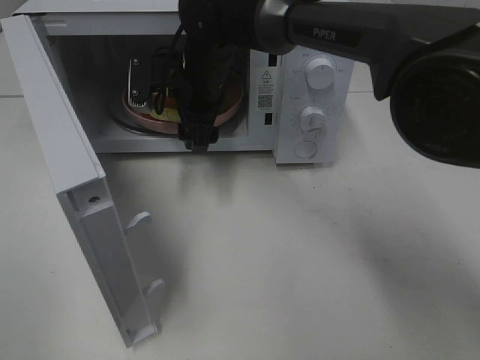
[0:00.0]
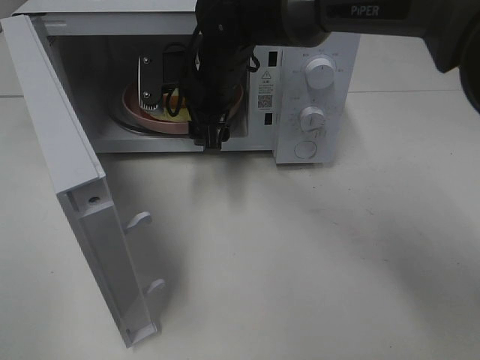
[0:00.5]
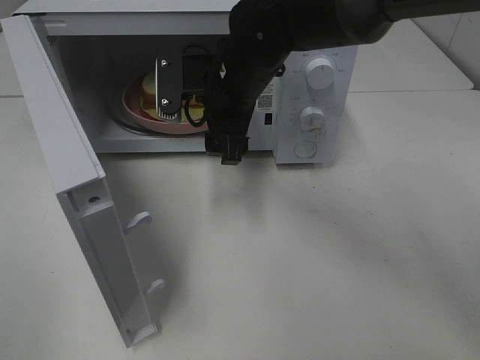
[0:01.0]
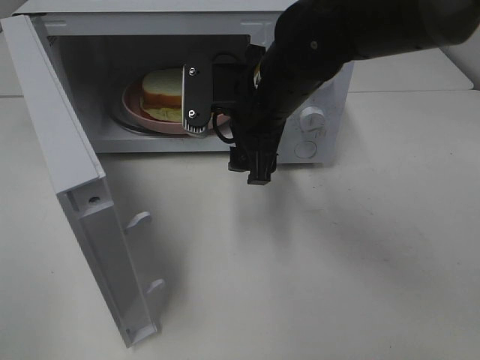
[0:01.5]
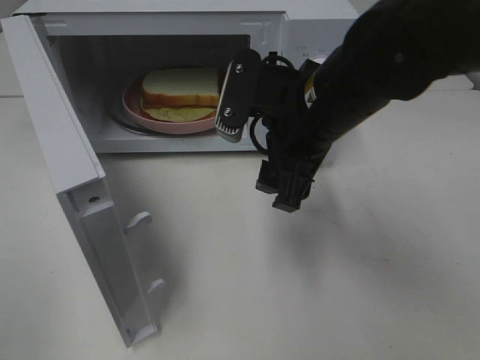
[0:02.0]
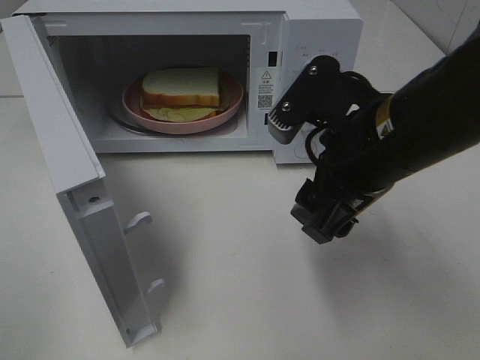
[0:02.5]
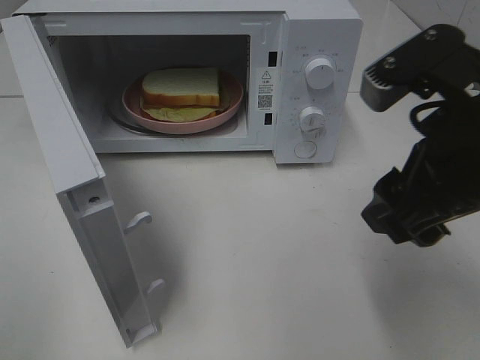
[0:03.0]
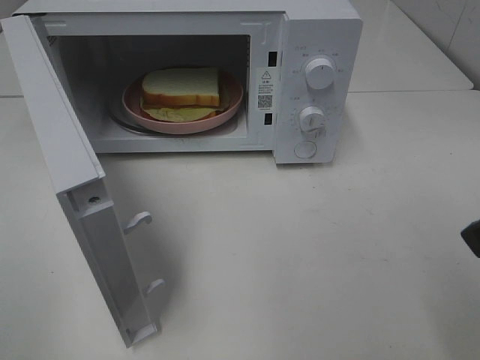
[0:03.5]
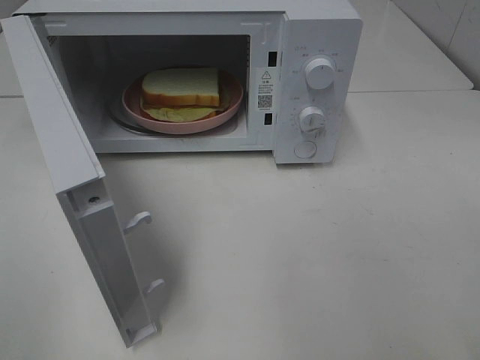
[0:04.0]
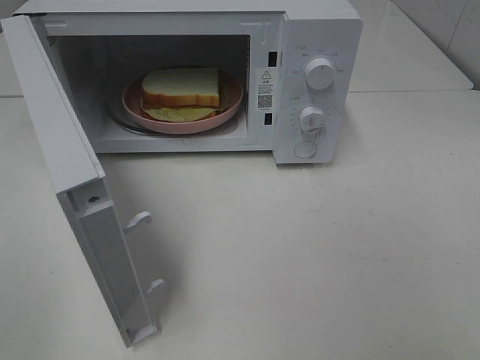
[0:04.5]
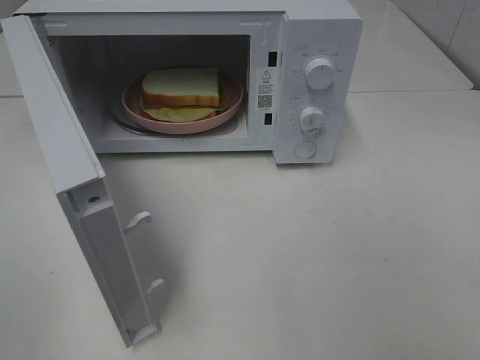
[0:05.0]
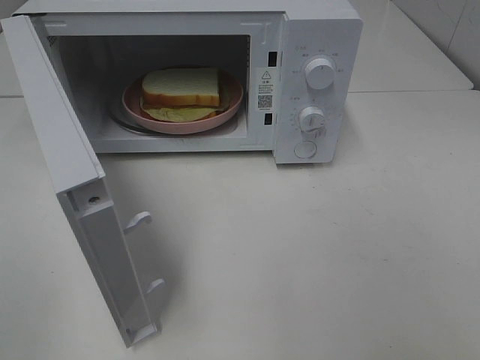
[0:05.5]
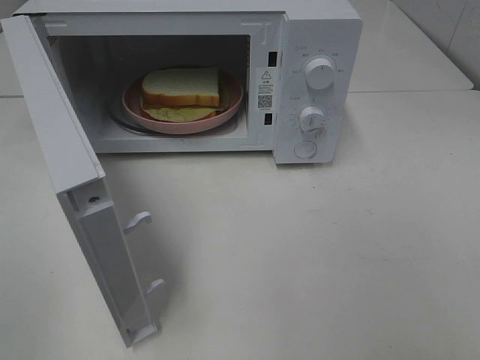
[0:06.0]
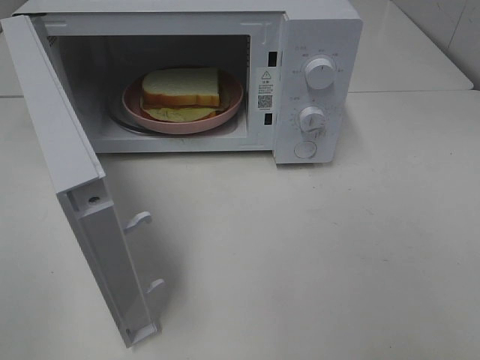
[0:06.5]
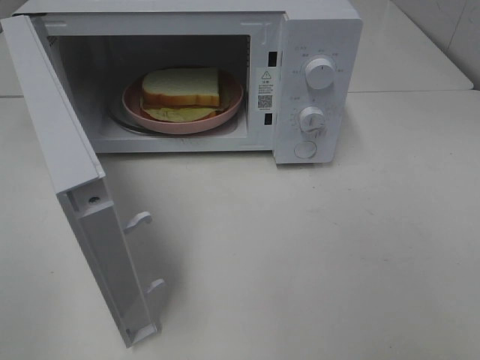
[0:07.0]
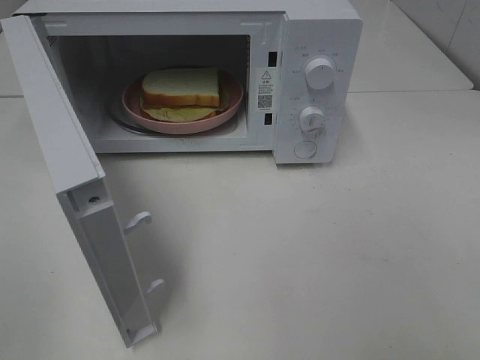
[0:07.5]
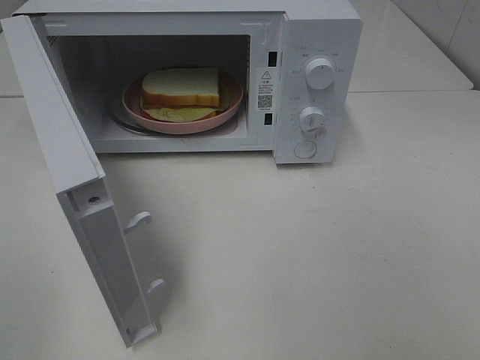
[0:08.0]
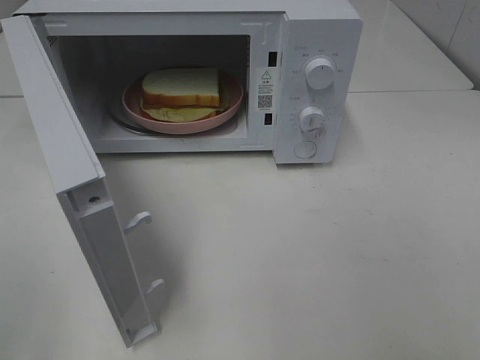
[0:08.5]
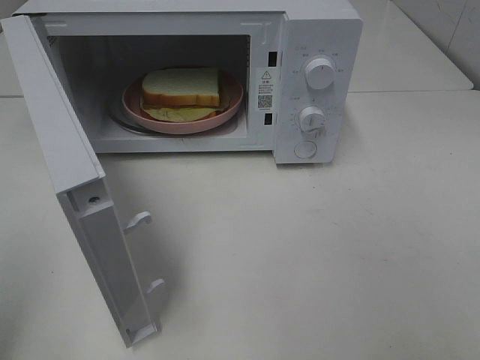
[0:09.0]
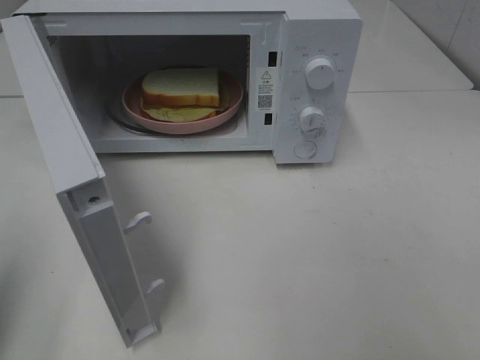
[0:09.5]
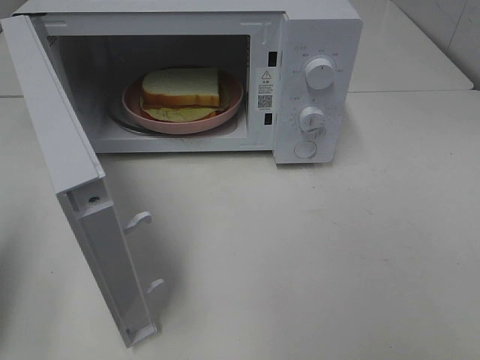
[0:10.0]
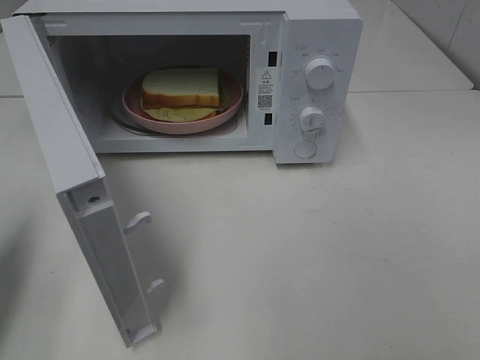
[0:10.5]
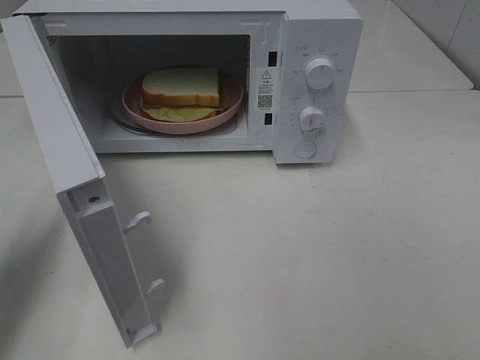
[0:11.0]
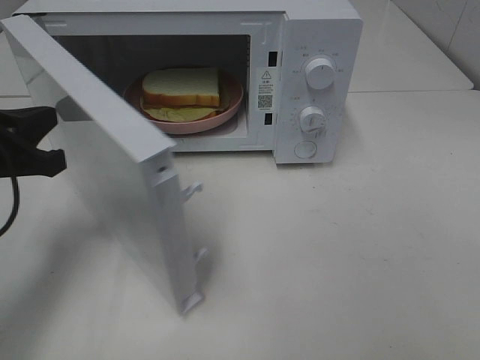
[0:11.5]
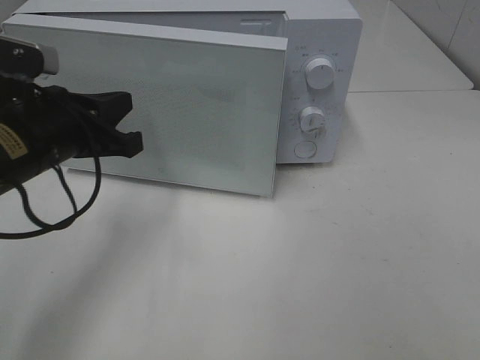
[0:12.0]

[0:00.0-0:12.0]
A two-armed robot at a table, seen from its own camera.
Task of the whole recording: Heat Sandwich.
0:00.0 to 0:02.0: The right gripper moves backward and to the right, approximately 20 cm.
0:02.0 to 0:04.0: The right gripper shifts approximately 25 cm backward, to the right and upward.
0:06.0 to 0:08.0: The two grippers keep their place.
0:08.0 to 0:10.0: The left gripper goes approximately 15 cm forward, and closes.
0:10.0 to 0:12.0: The left gripper is displaced to the right, forward and downward by about 20 cm.

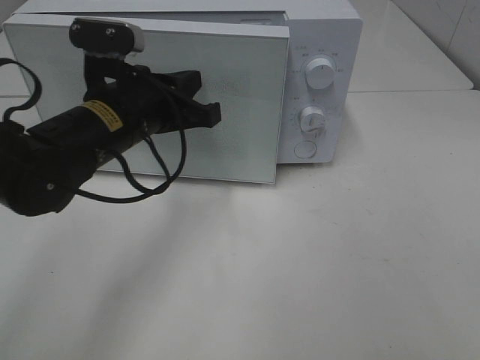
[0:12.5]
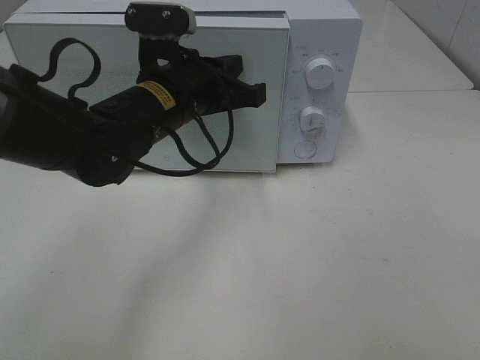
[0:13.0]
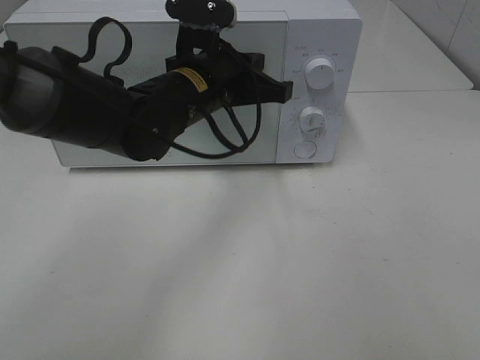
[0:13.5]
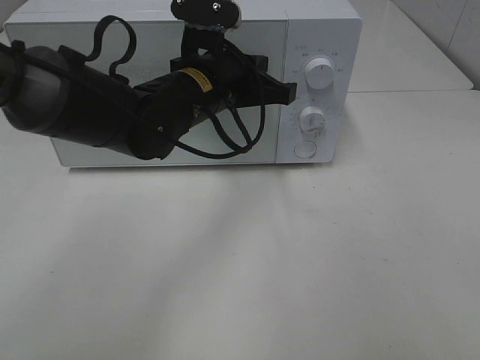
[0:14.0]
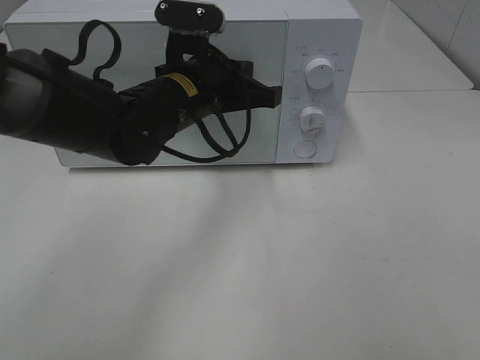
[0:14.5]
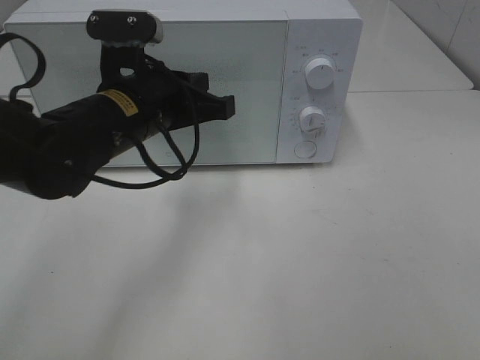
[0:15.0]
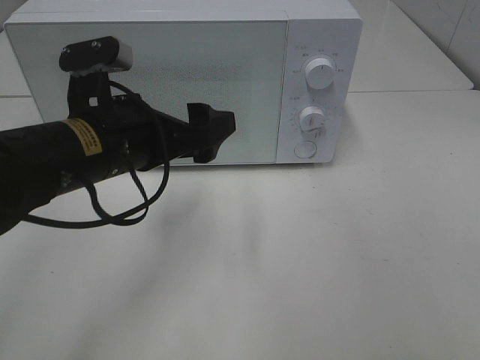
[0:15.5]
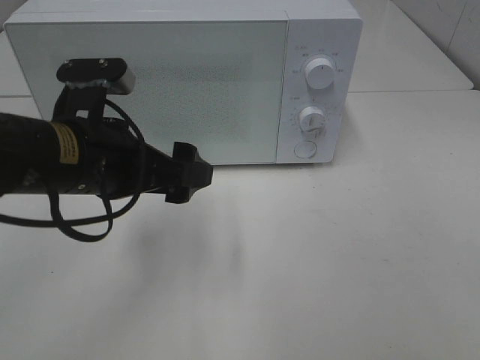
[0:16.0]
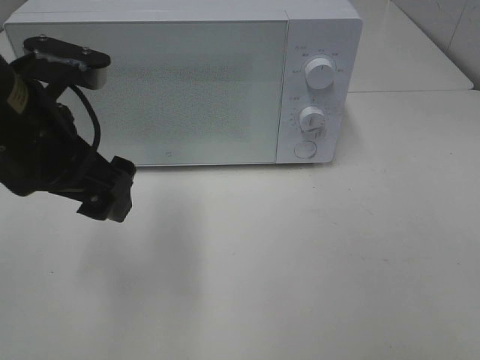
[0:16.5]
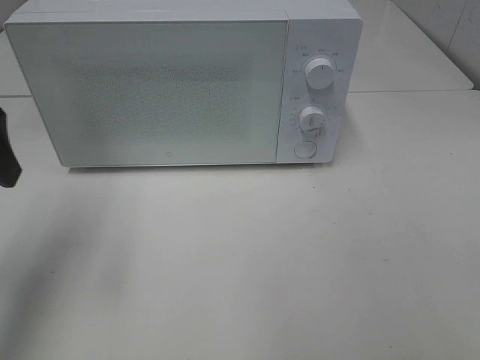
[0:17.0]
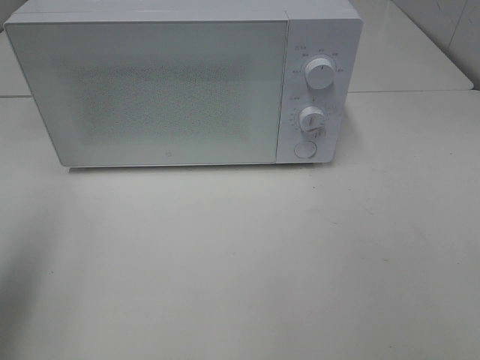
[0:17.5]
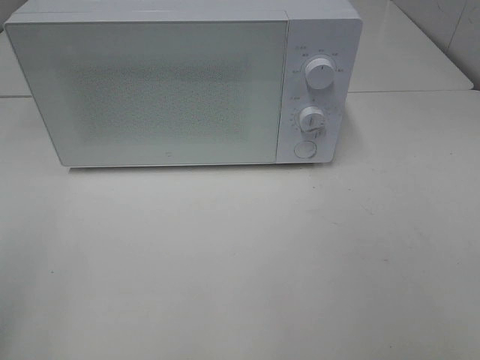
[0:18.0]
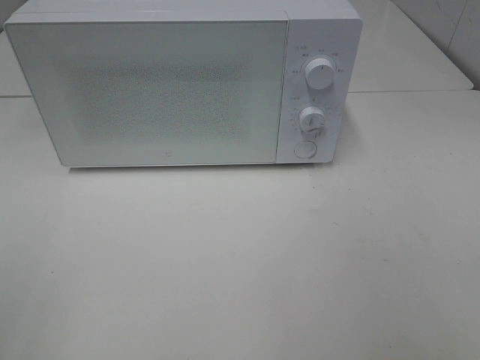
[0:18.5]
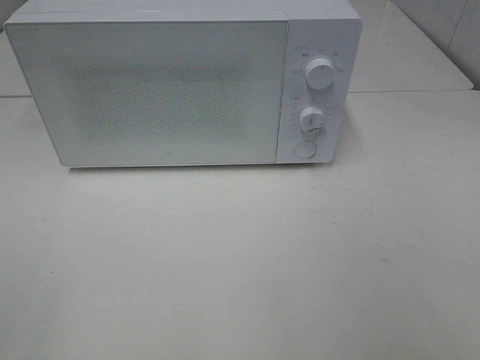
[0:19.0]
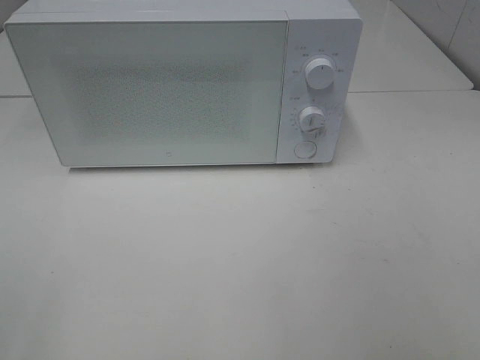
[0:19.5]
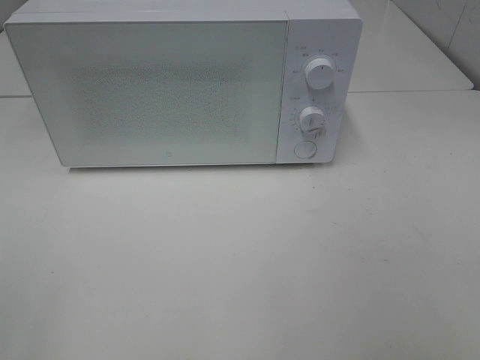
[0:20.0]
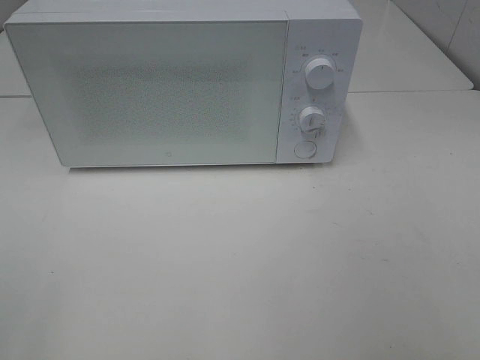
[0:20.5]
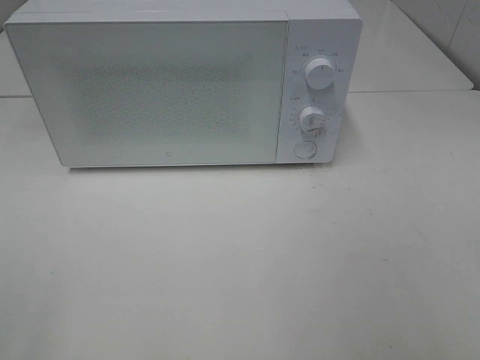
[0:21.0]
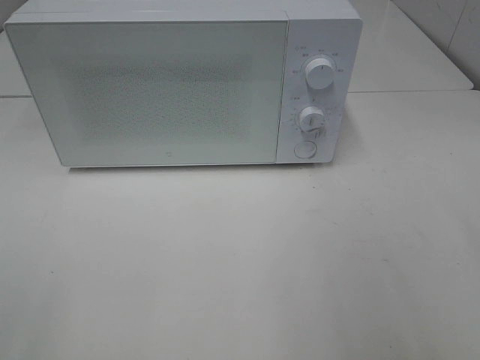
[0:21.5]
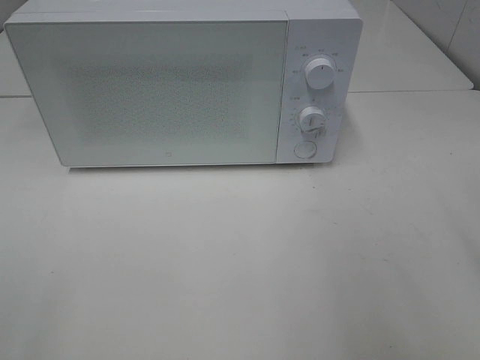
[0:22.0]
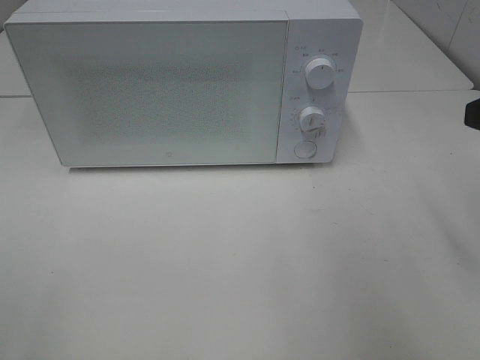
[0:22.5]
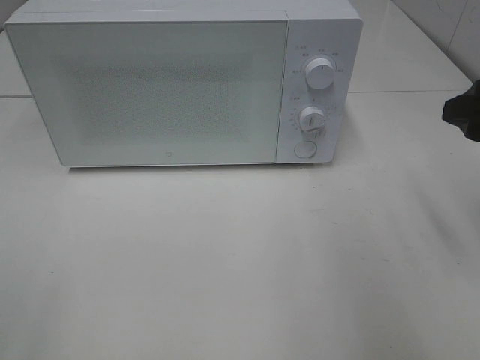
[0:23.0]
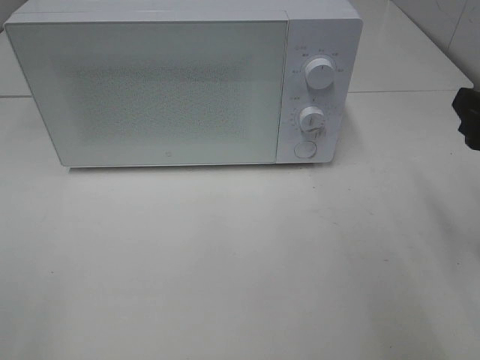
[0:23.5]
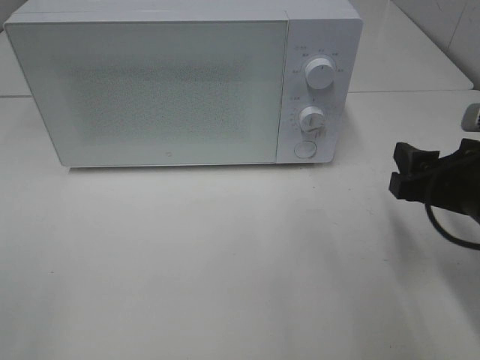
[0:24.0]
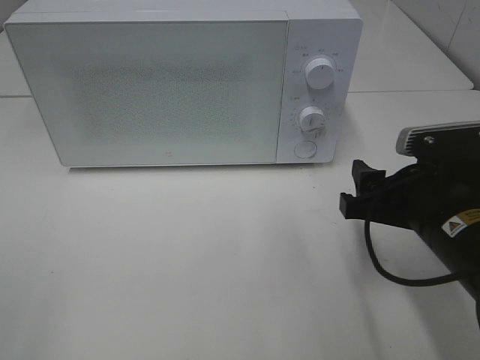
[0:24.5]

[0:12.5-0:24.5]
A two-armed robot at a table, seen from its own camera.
Task of the whole recording: Heat Sandwich.
Step, 0:12.5 to 0:14.5: Left hand: close the microwave door.
0:12.5 to 0:14.5: The left gripper goes about 5 cm to the right.
0:14.5 to 0:16.5: The left gripper heads backward, to the left and upward, covering approximately 15 cm, and opens.
0:16.5 to 0:18.5: The left gripper heads backward and to the left, covering about 25 cm.
0:22.5 to 0:24.5: The right gripper is displaced downward and to the left by approximately 15 cm.

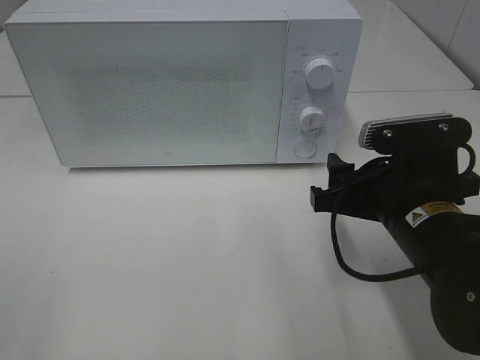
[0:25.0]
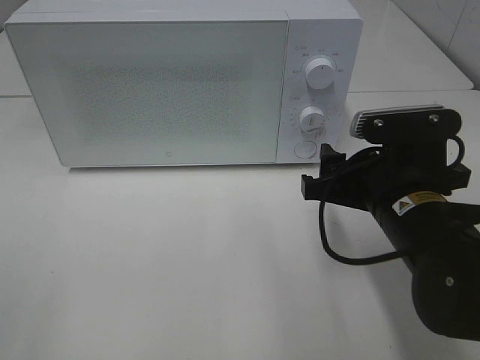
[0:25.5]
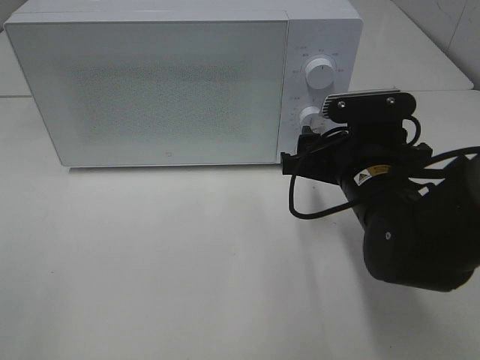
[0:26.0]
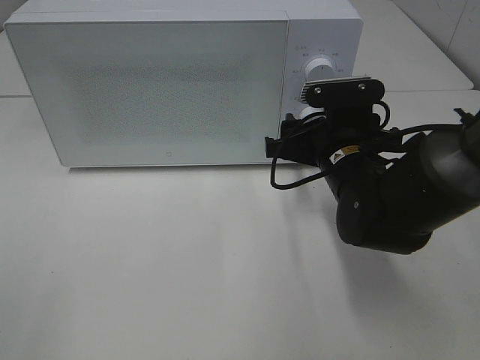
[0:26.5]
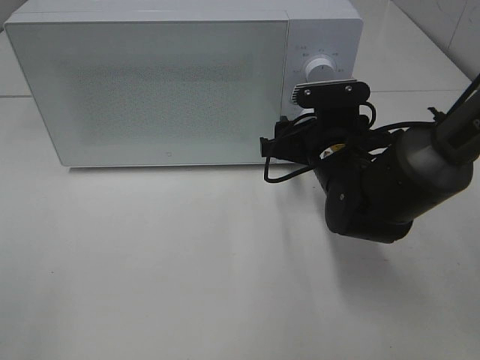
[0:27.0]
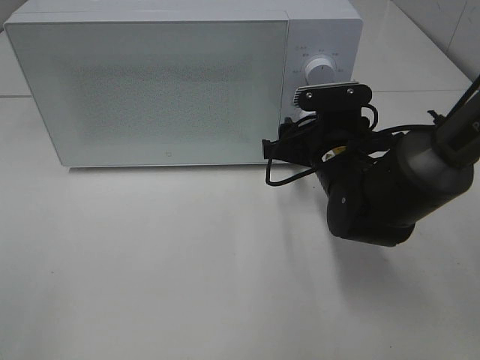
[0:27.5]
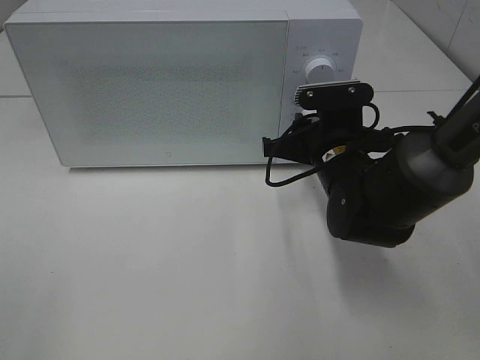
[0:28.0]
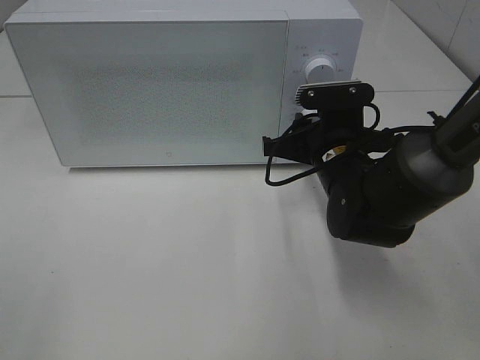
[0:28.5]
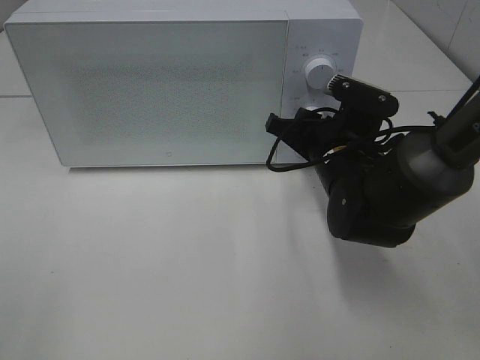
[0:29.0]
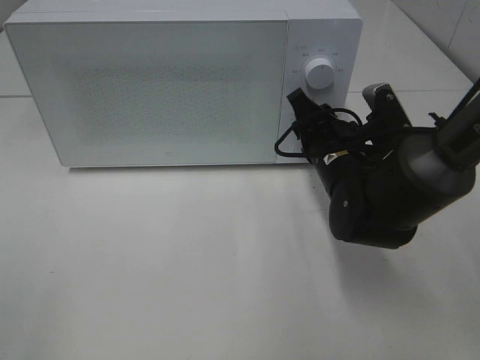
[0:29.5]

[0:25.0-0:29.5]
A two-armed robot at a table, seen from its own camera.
Task of the whole recording: Heat Sandwich.
0:25.0 to 0:27.0: The right gripper travels forward by approximately 10 cm.
0:27.0 to 0:29.5: The right gripper closes.
